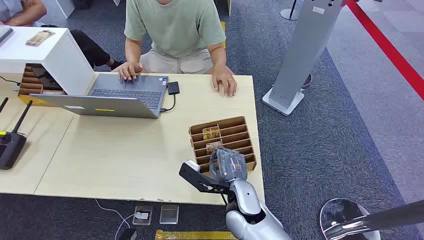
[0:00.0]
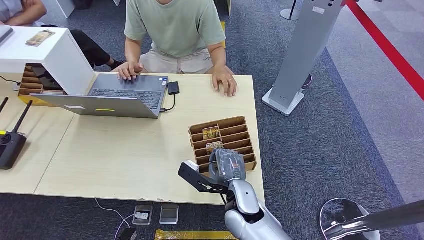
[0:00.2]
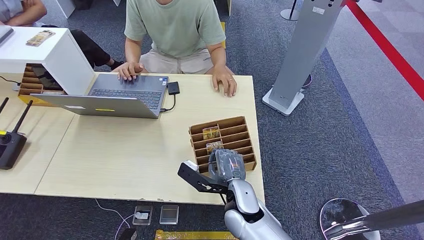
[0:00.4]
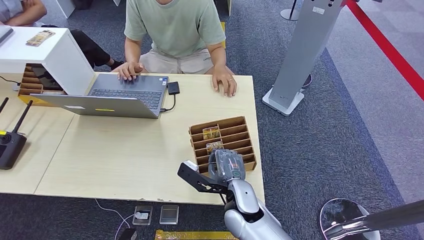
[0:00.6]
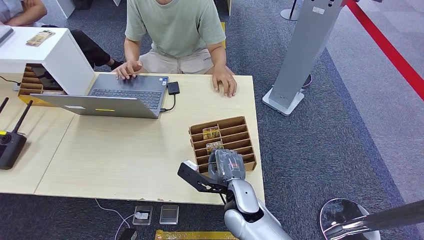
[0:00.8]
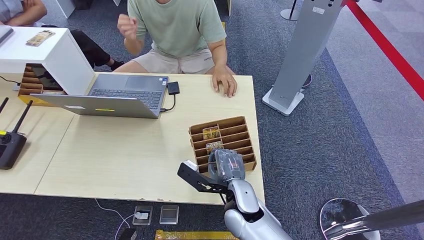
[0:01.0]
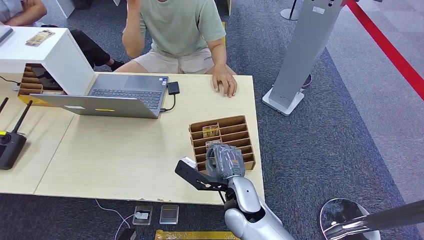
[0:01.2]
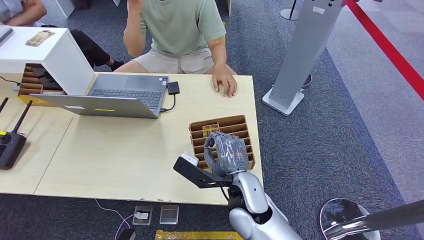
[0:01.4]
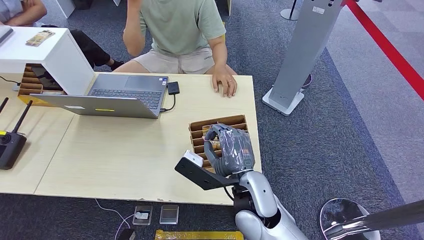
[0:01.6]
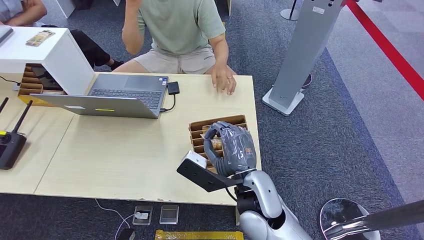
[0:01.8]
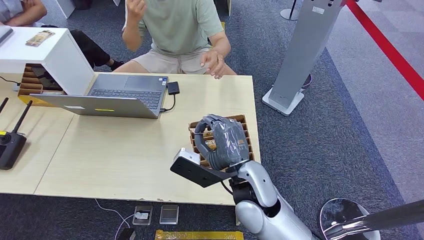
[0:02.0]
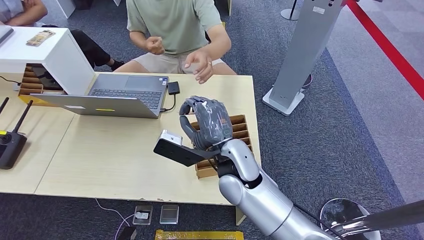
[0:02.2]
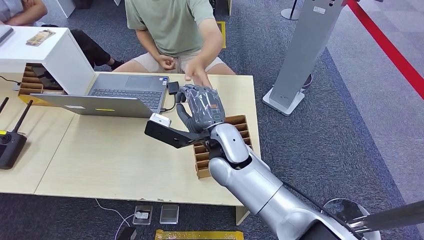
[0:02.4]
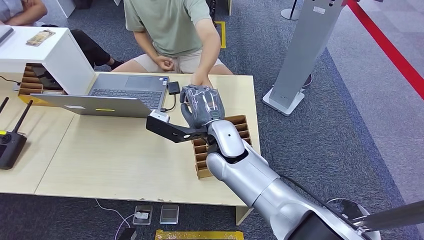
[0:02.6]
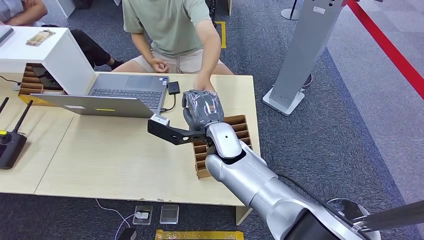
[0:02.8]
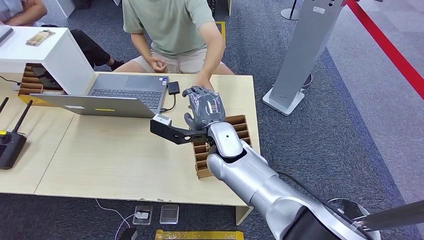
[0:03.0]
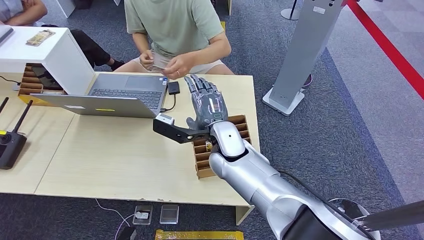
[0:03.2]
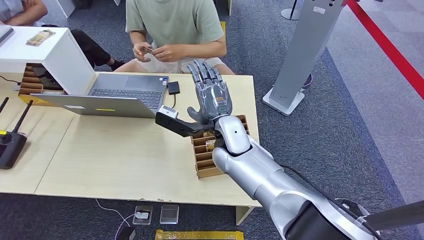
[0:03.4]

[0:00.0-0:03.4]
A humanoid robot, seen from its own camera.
Step, 0:00.0 to 0:01.4: Pick up the key card from the card box.
Step, 0:02.2 to 0:03.4: Hand the key card to the target.
0:01.6 to 0:03.4: The right hand shifts approximately 15 cm forward and to the left.

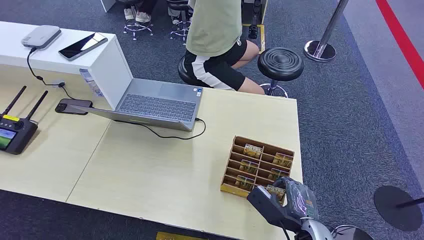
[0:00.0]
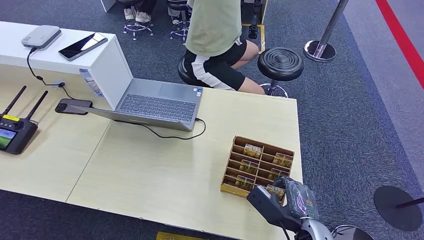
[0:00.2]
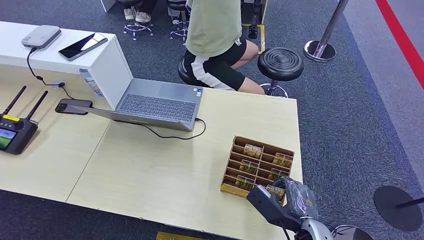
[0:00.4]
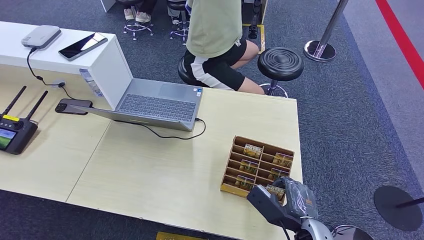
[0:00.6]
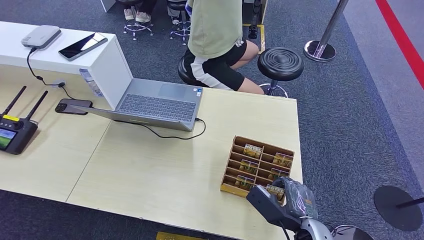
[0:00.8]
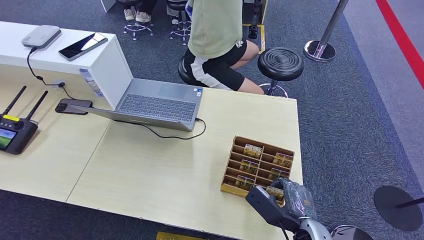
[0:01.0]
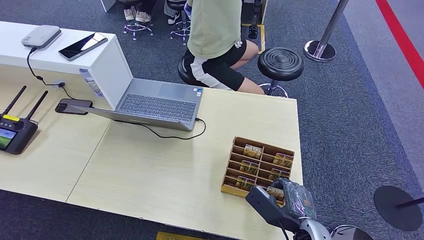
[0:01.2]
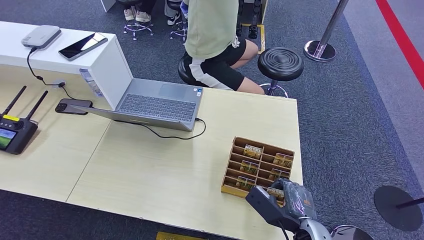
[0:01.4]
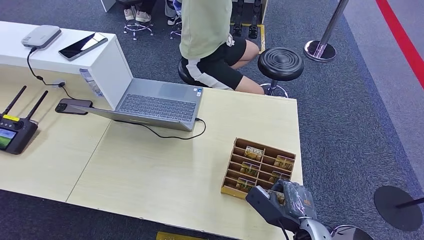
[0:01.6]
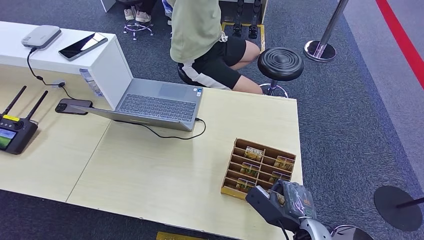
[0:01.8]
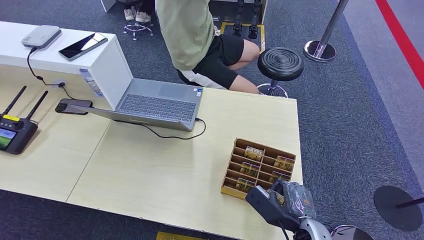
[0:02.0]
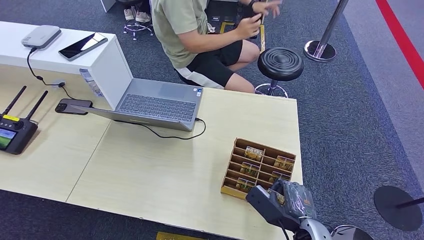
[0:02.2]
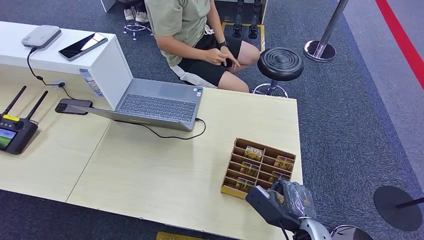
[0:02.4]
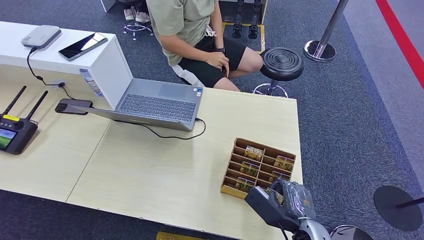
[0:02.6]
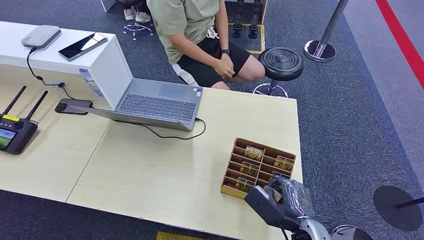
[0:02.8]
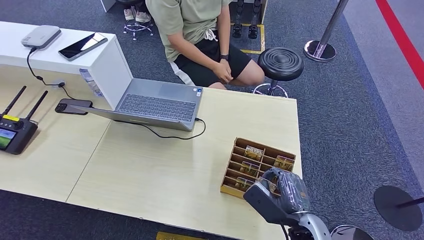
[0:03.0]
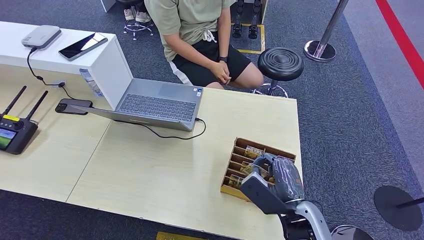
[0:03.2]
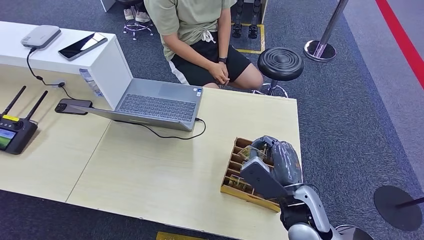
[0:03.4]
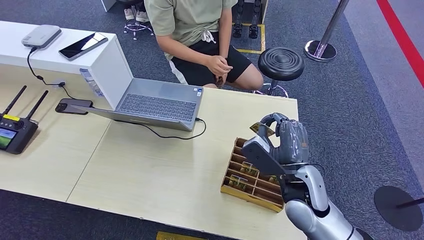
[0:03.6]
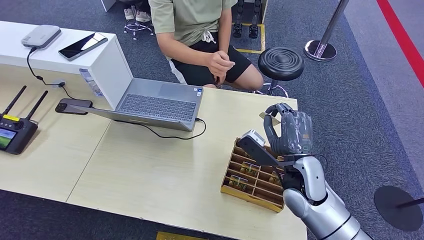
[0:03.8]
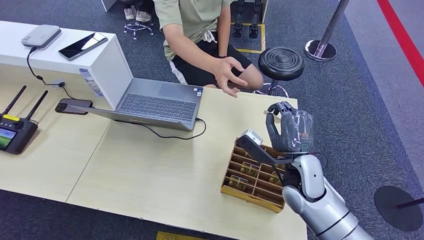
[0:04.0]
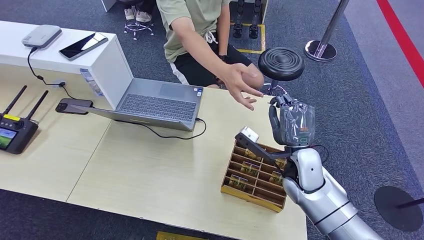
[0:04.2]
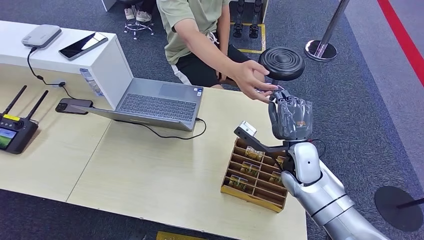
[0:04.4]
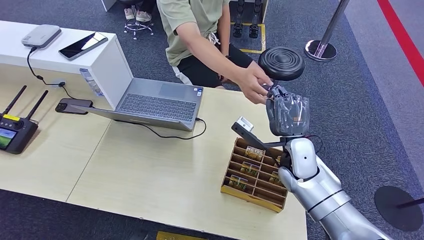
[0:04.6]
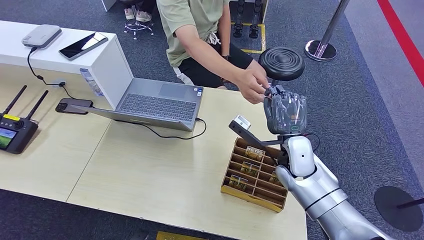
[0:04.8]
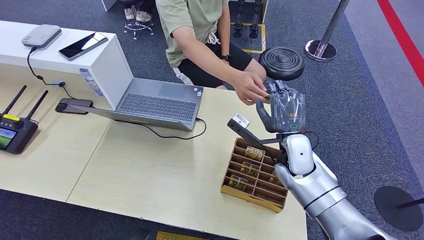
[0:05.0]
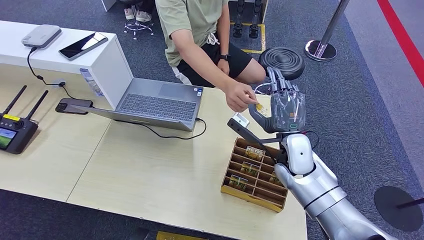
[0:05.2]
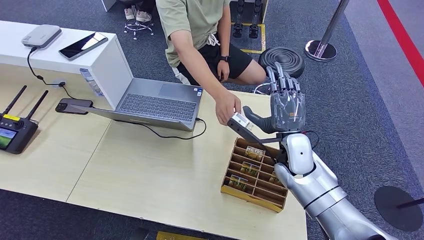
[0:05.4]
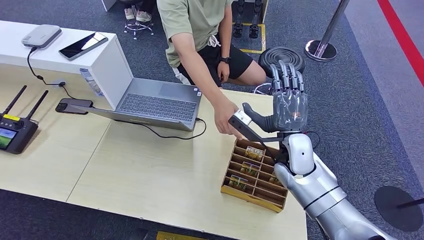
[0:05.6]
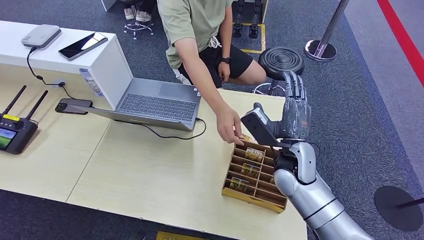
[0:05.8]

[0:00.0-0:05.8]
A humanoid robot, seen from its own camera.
Step, 0:00.0 to 0:03.0: Pick up the key card from the card box.
Step, 0:03.2 to 0:05.8: Hand the key card to the target.
0:01.4 to 0:02.8: The hands move only a little.
0:02.8 to 0:04.4: The right hand is displaced forward and upward by roughly 20 cm.
